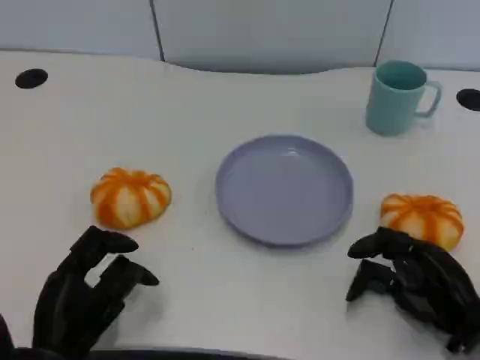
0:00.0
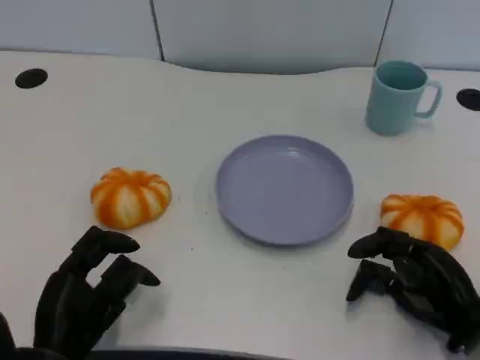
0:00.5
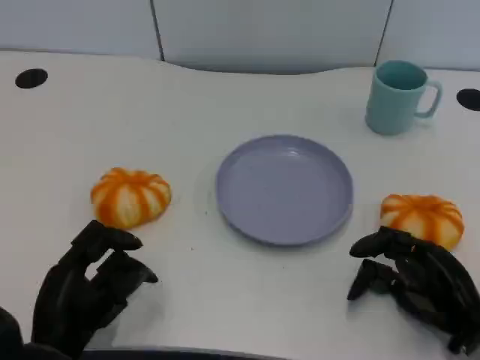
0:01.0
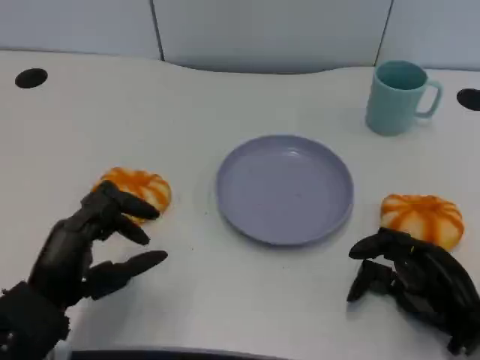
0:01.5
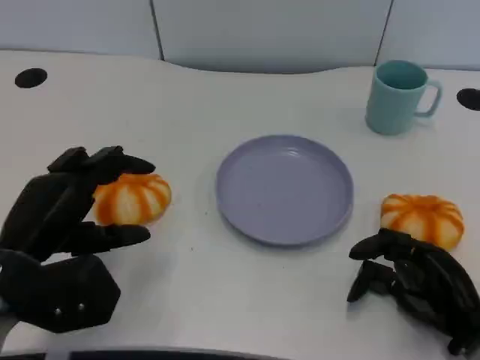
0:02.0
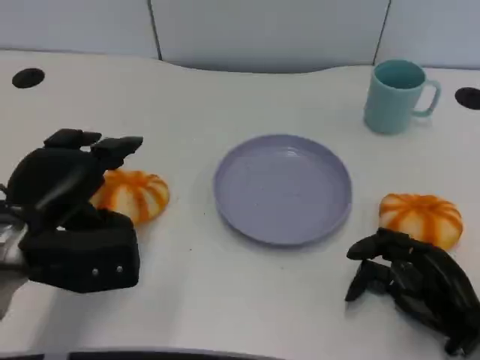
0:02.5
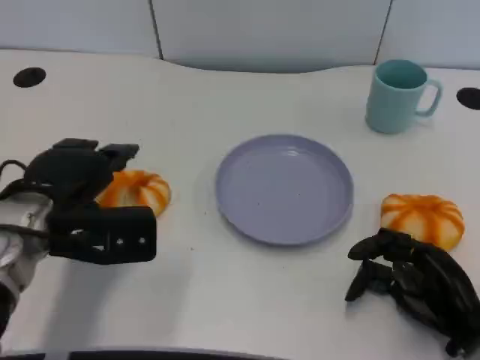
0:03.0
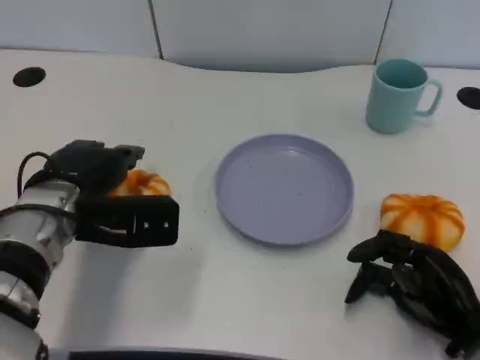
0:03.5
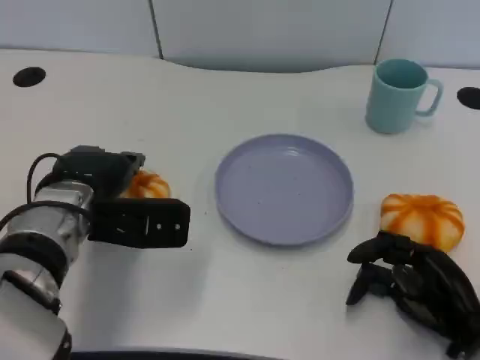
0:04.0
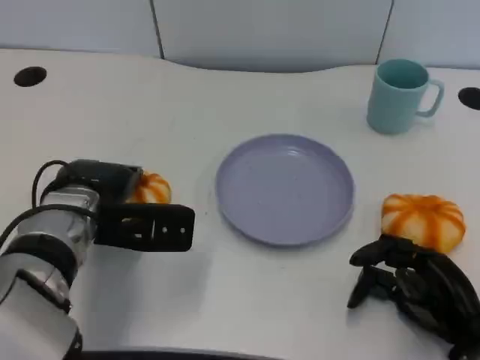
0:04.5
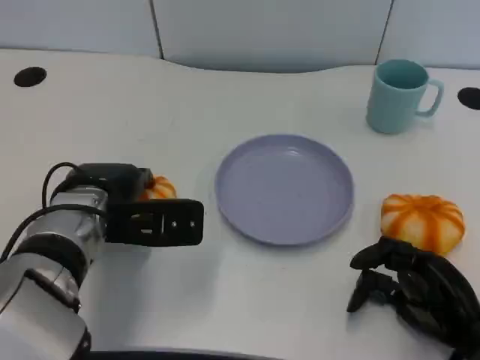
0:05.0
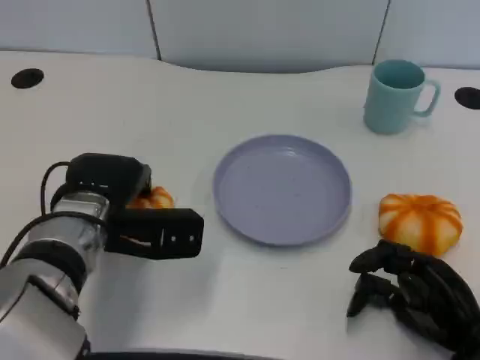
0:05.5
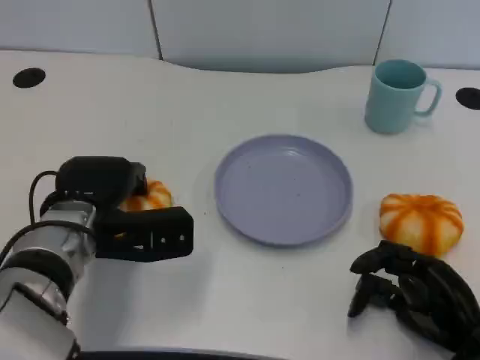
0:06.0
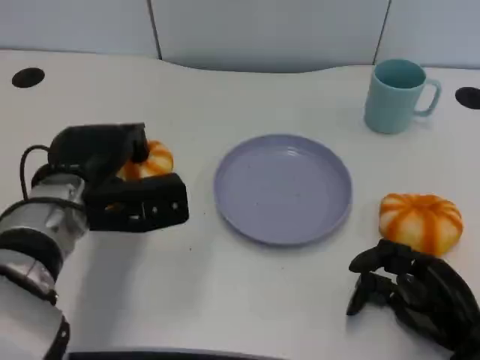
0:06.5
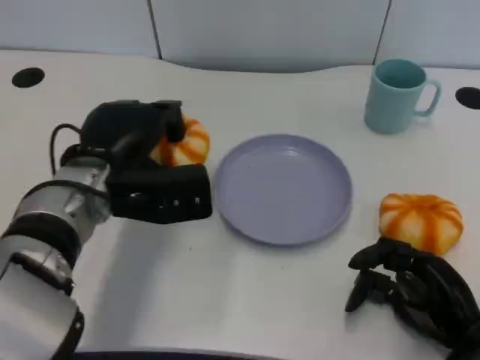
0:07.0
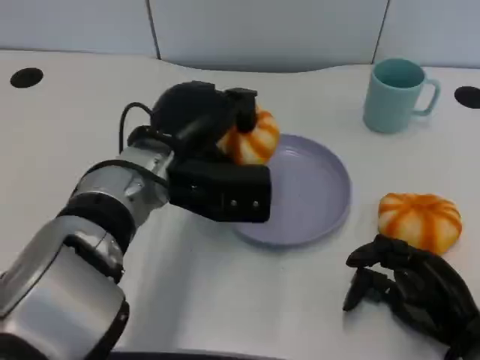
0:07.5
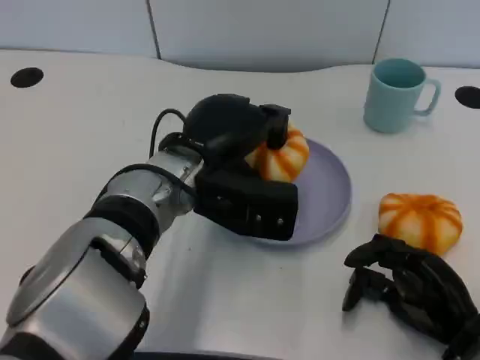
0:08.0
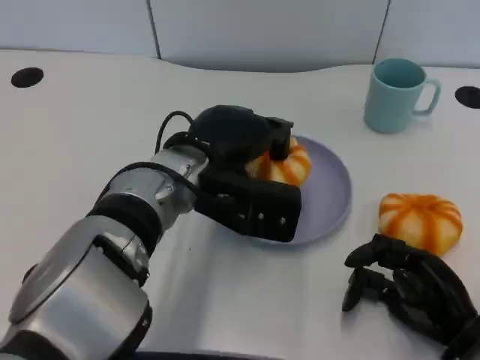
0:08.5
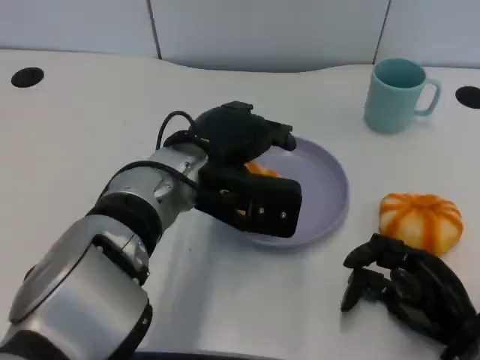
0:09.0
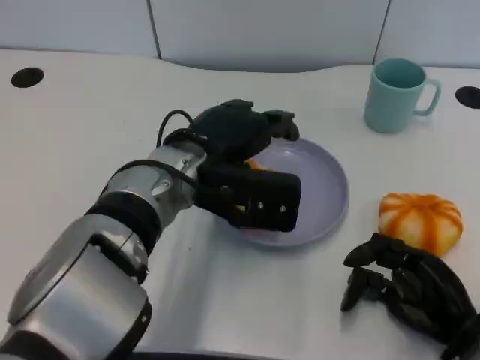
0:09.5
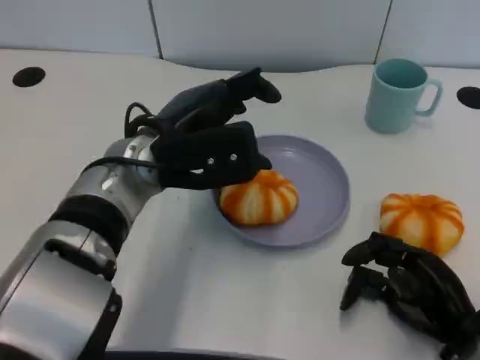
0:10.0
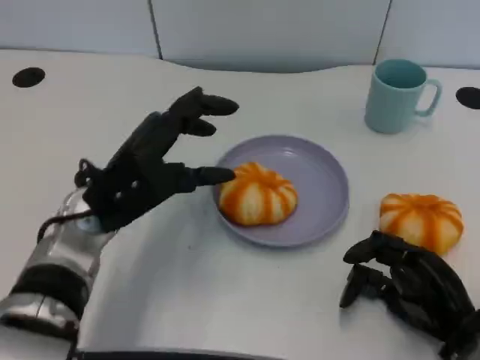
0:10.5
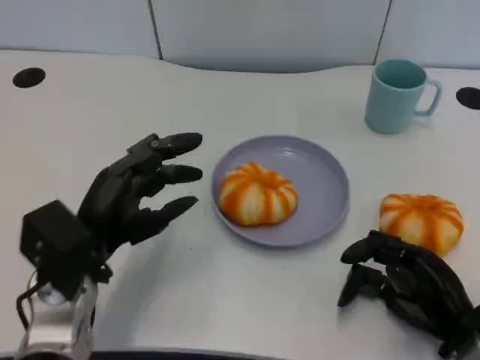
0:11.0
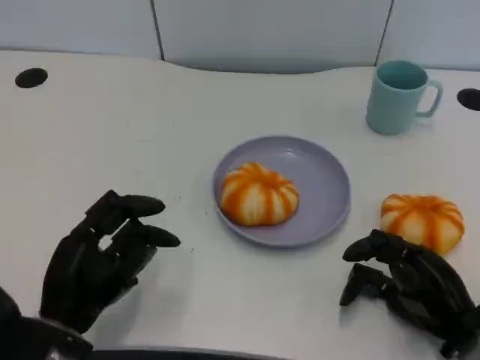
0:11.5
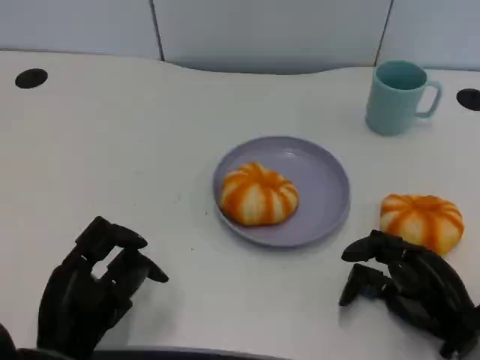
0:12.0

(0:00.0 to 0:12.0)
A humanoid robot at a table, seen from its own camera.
Task of the whole recording: Grasp the bread from the table and place it into the plate.
0:00.0 - 0:02.0: The left hand shifts roughly 10 cm upward and forward.
0:02.0 - 0:04.0: The left hand travels forward and to the right by about 10 cm.
0:04.0 - 0:06.0: There are only small adjustments of the hands.
0:06.0 - 0:08.0: The left hand travels to the right and upward by some 10 cm.
0:10.0 - 0:12.0: The left hand travels backward, downward and to the left by some 25 cm.

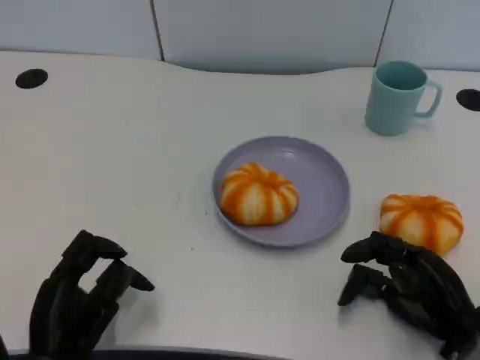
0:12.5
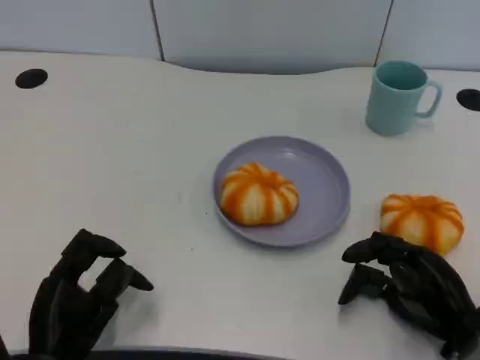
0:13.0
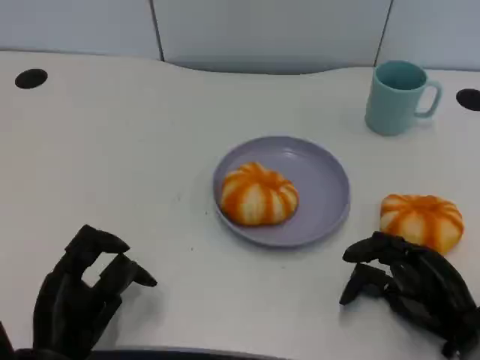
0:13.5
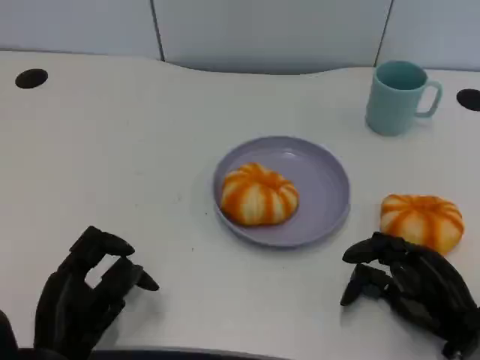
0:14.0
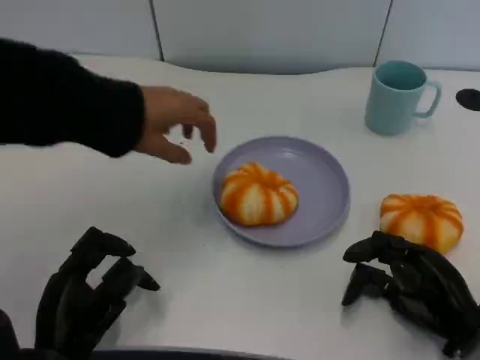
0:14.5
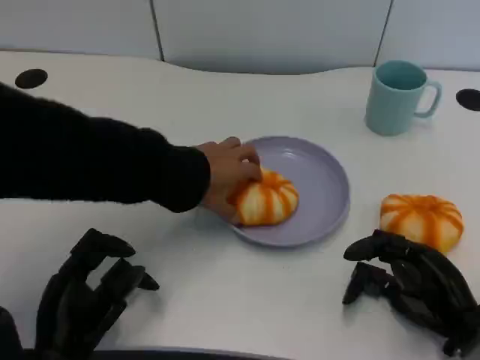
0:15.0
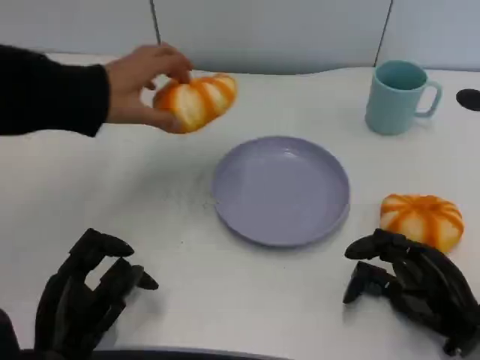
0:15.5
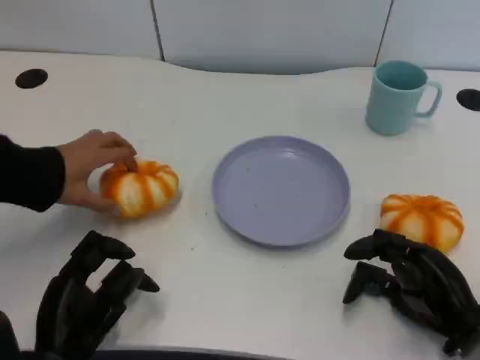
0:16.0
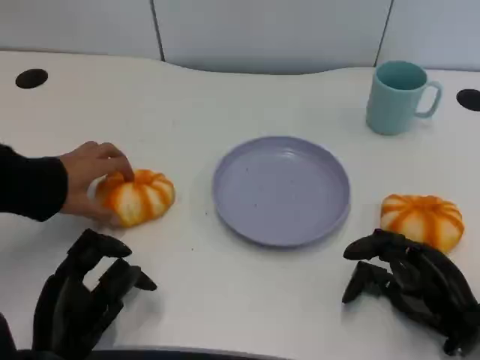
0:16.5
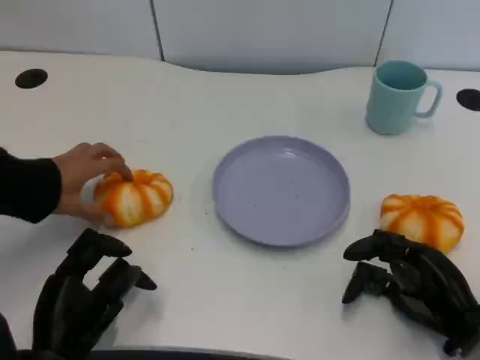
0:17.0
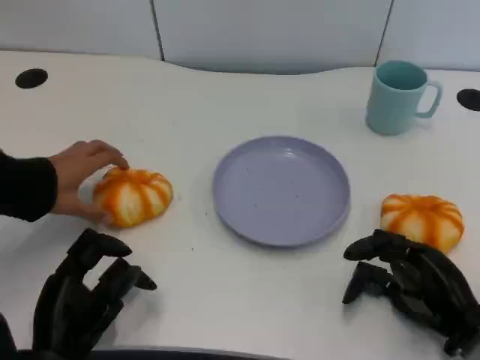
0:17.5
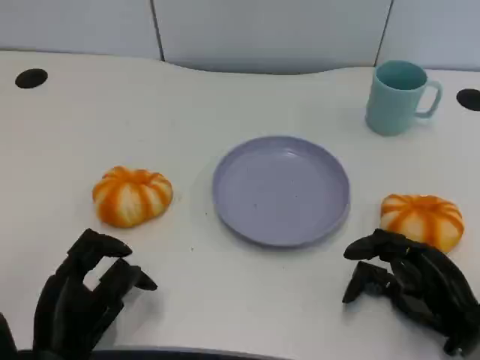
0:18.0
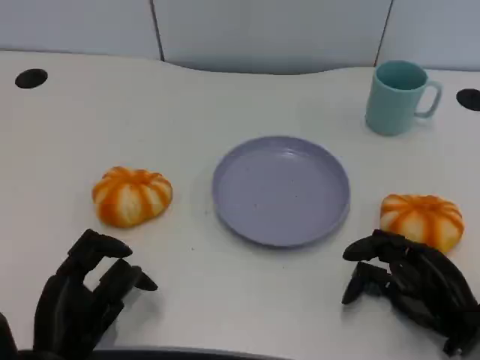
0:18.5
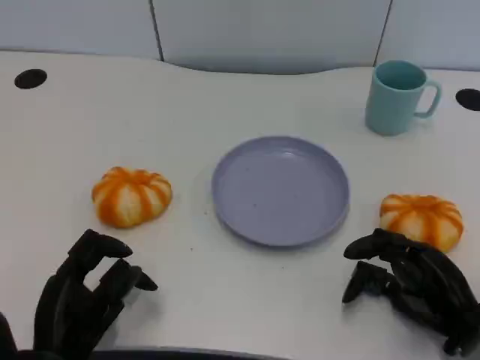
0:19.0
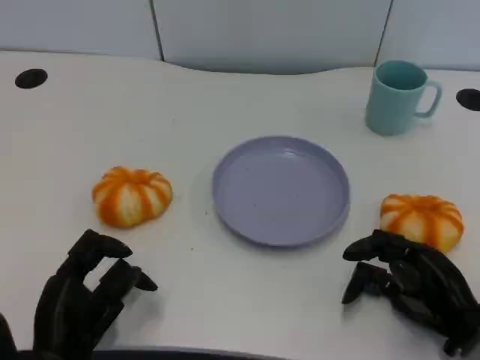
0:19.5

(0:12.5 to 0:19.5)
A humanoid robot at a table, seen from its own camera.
Task of the whole recording: Grasp the bread from the table and place it into the plate.
0:16.0 - 0:19.5: Both hands stay about where they are.

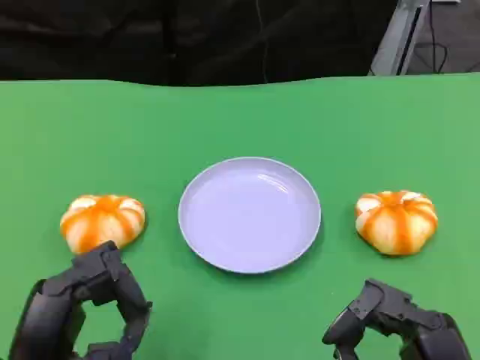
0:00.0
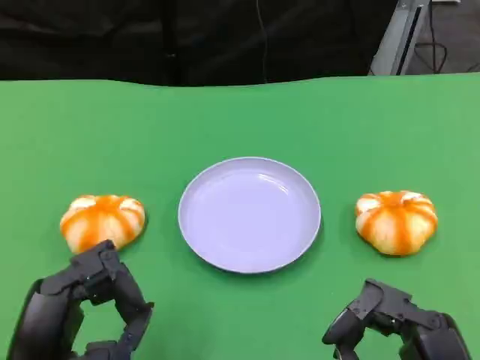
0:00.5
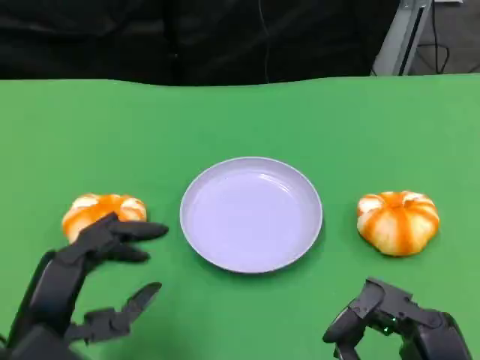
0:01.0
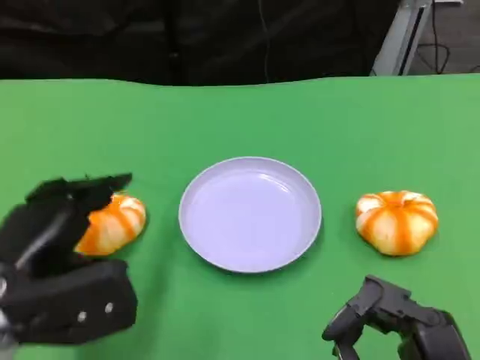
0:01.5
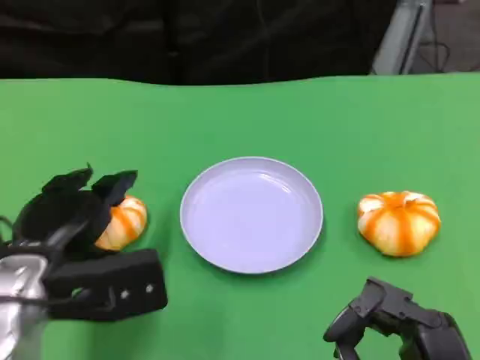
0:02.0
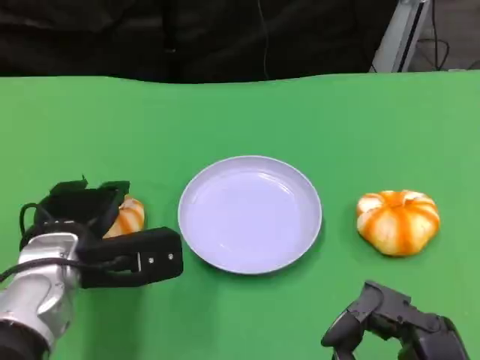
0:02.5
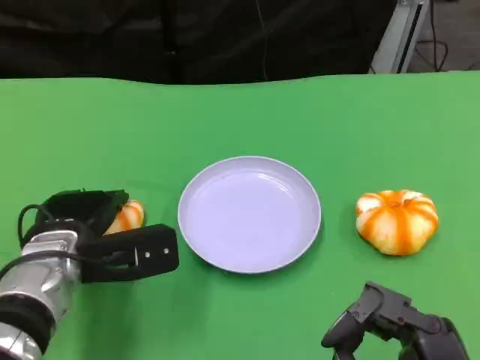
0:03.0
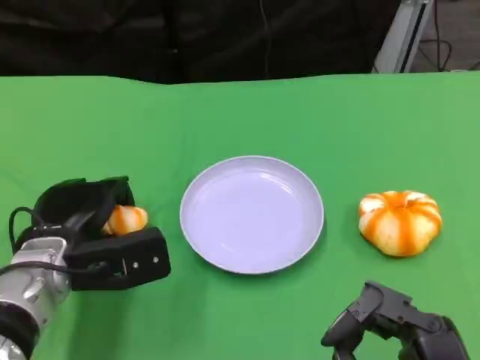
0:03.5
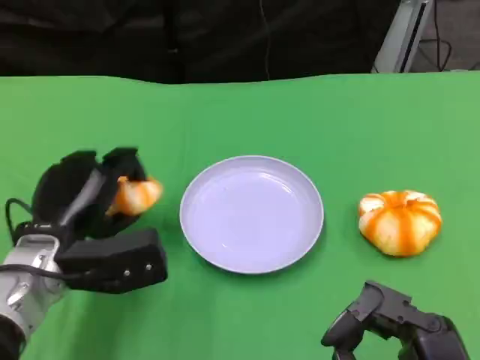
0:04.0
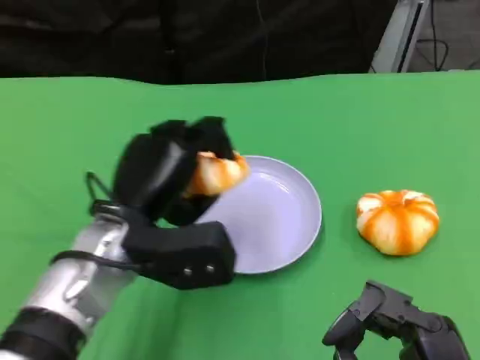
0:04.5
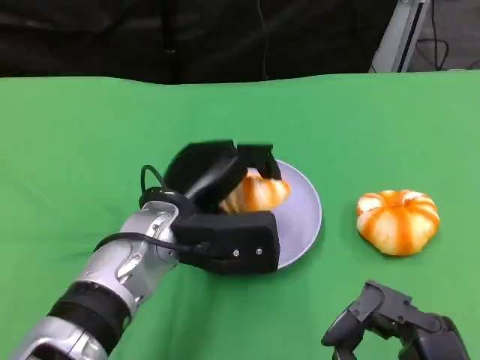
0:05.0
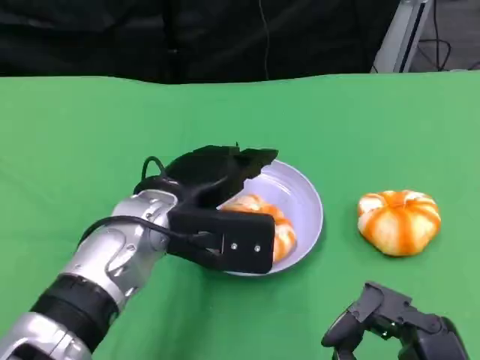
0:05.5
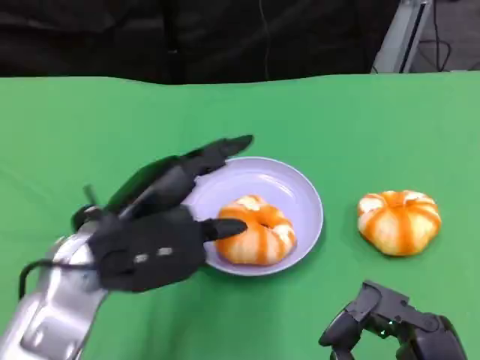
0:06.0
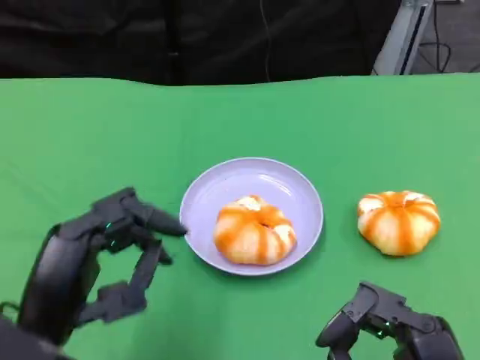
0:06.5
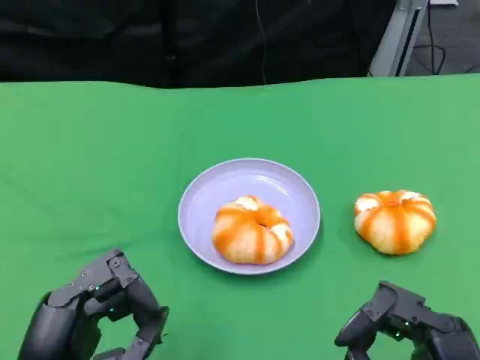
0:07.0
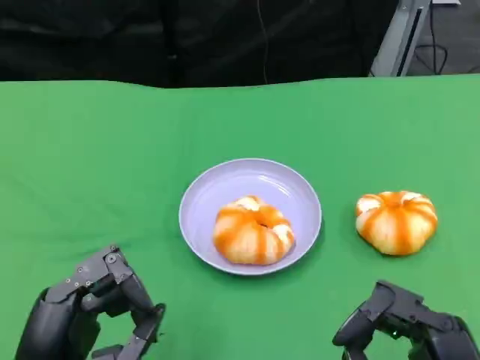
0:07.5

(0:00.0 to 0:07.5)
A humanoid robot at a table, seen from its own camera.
Task of the whole recording: Grasp the bread from the table and place it into the plate.
0:00.0 - 0:02.0: The left hand is displaced forward by roughly 10 cm.
0:04.0 - 0:05.5: The left hand goes some 10 cm to the right.
0:05.5 - 0:07.5: The left hand heads backward and to the left, covering approximately 20 cm.
